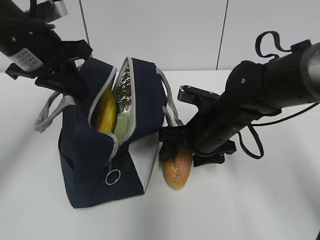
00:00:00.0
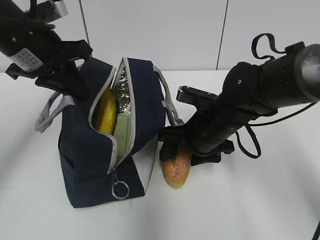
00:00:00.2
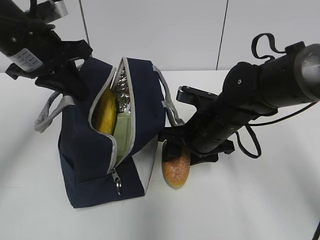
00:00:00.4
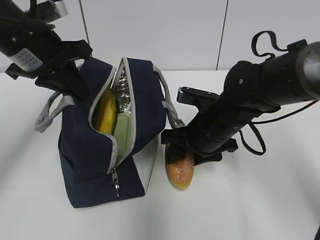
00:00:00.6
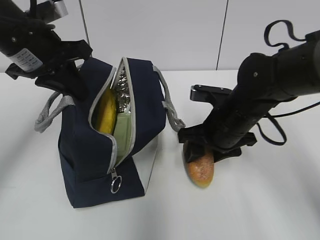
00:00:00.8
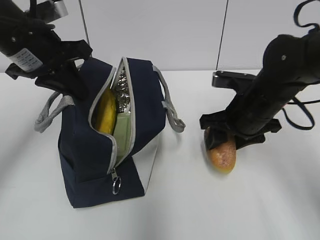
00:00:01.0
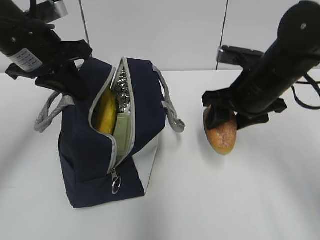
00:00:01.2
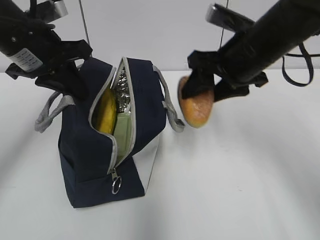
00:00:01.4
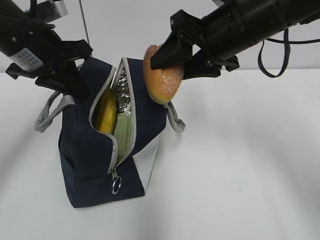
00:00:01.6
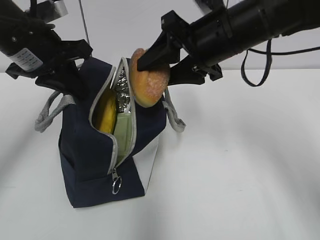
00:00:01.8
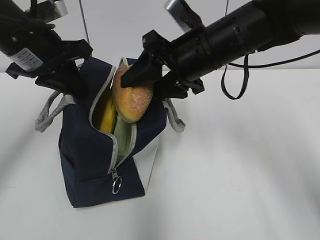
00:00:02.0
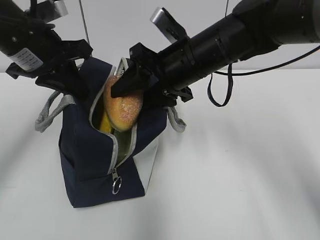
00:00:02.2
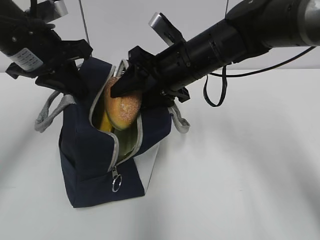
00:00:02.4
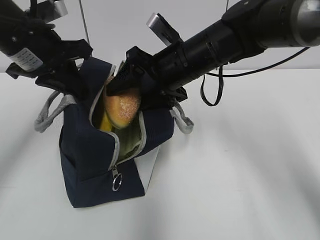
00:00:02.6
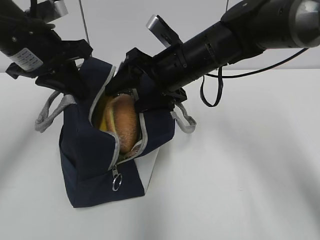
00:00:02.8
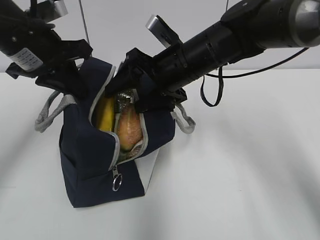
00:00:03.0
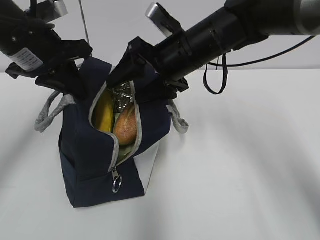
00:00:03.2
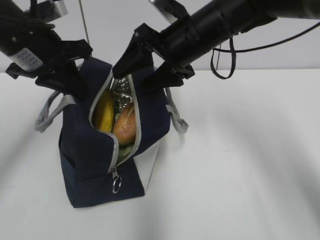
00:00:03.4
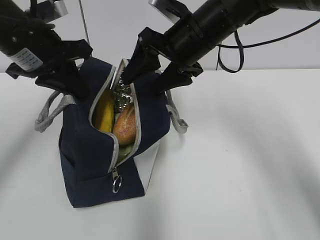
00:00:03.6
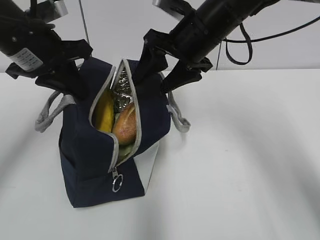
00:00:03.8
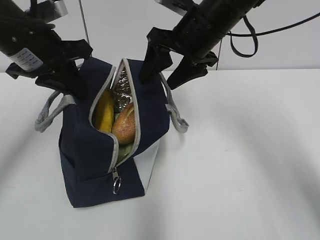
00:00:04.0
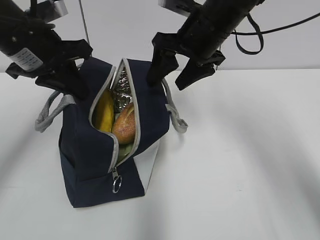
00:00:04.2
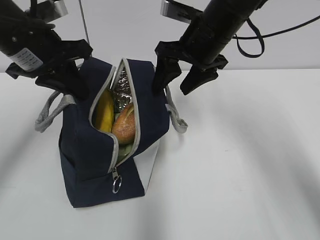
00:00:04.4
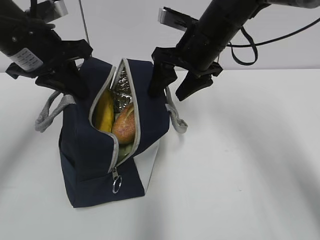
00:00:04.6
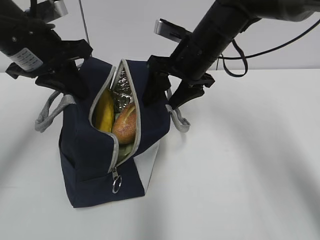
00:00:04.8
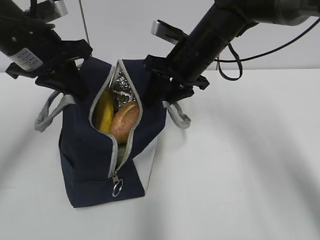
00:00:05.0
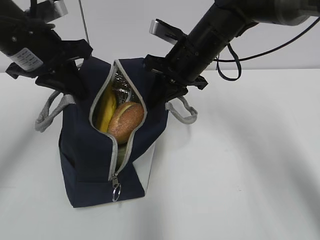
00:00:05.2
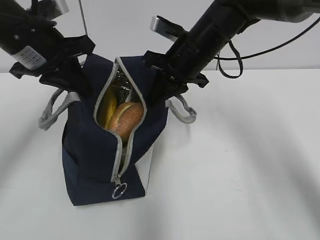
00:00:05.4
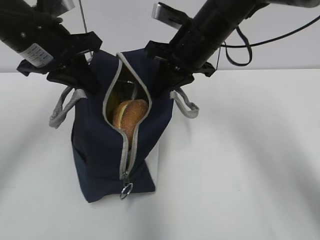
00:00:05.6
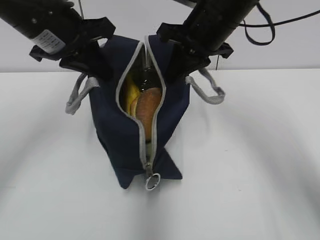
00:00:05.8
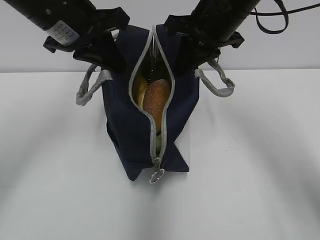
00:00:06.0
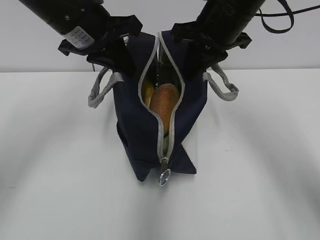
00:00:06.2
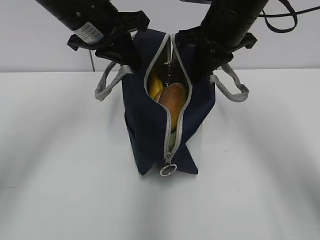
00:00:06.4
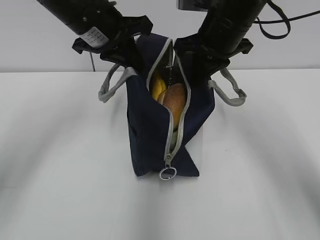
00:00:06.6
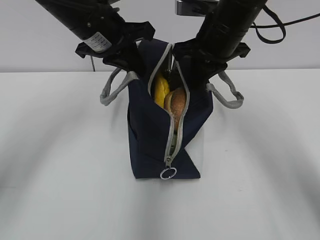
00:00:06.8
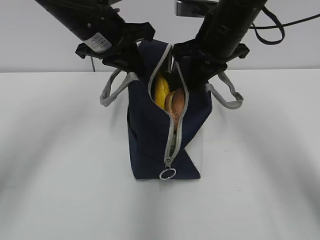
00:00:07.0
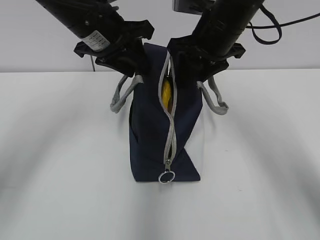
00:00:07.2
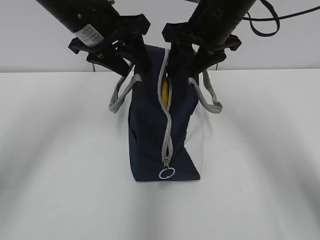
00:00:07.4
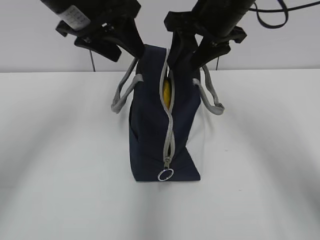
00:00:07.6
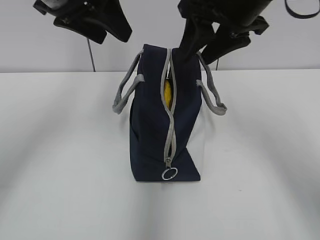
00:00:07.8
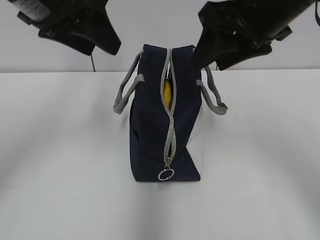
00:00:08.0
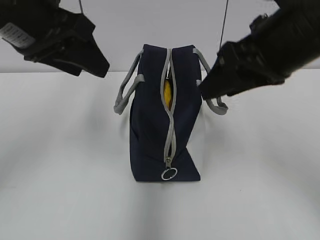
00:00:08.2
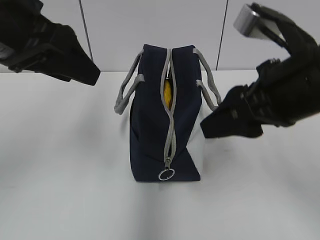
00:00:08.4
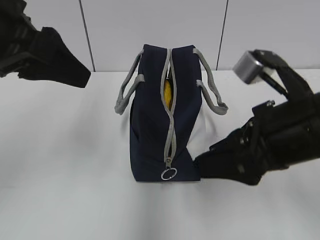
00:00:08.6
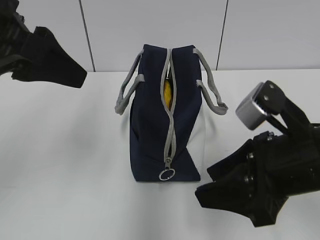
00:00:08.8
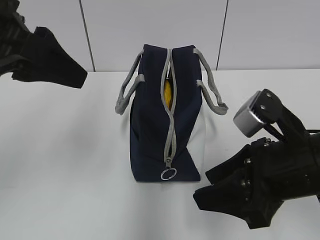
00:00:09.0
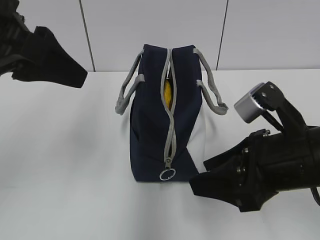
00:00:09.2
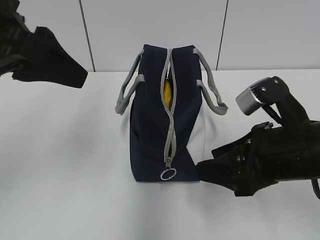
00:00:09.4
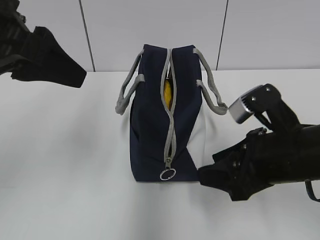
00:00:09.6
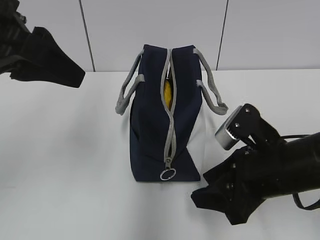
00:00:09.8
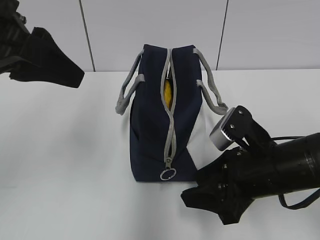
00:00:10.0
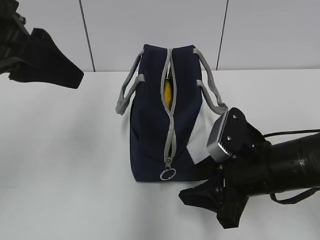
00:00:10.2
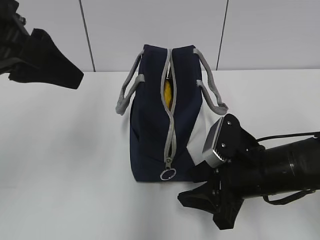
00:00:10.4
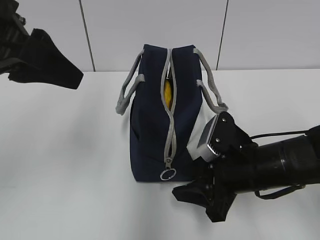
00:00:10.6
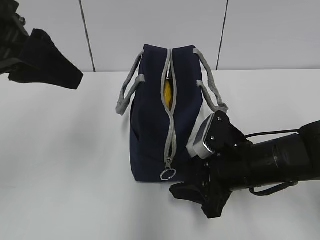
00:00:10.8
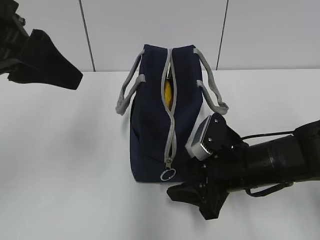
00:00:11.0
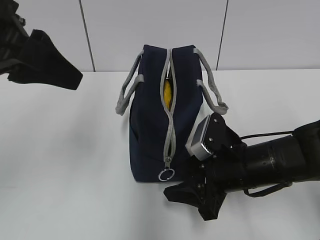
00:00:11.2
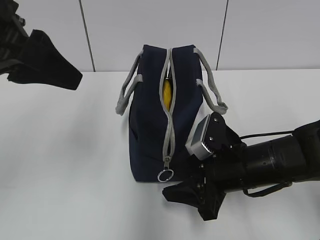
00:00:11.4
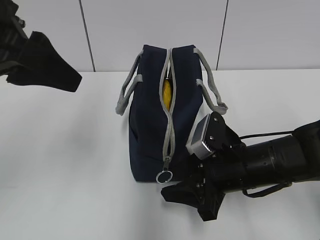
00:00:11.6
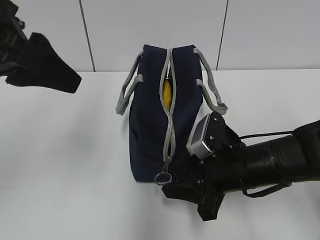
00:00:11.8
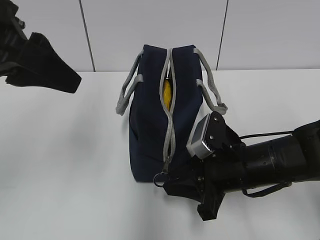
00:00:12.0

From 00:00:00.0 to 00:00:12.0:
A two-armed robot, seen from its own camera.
Step, from 00:00:00.6 to 00:00:03.0: Place it into the bag with your right hand.
Step, from 00:00:03.2 to 00:00:05.2: Grab the lunch bag with your right hand.
Step, from 00:00:05.4 to 00:00:05.6: Move the lunch bag to the left.
Step, from 00:00:05.8 to 00:00:07.2: Move the lunch bag to the right.
From 00:00:00.0 to 00:00:01.6: The right gripper moves upward, about 15 cm.
From 00:00:01.6 to 00:00:03.0: The right gripper heads downward and to the left, covering roughly 10 cm.
From 00:00:03.0 to 00:00:04.4: The right gripper moves roughly 5 cm.
From 00:00:04.4 to 00:00:06.0: The left gripper moves to the right, approximately 5 cm; the right gripper ends up approximately 5 cm from where it was, and closes.
From 00:00:06.0 to 00:00:07.6: The right gripper opens its fingers; the left gripper opens.
From 00:00:07.6 to 00:00:09.0: The left gripper shifts about 15 cm backward and to the left. Meanwhile the right gripper shifts roughly 20 cm backward and downward.
From 00:00:09.0 to 00:00:10.4: The right gripper is displaced downward by roughly 5 cm.
From 00:00:10.4 to 00:00:12.0: The right gripper closes.

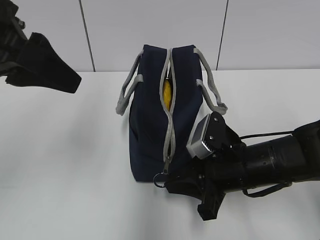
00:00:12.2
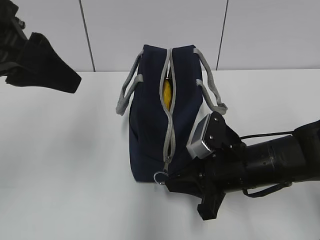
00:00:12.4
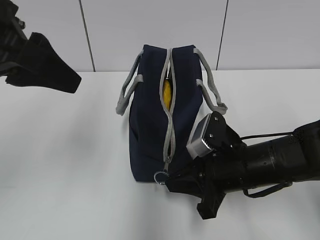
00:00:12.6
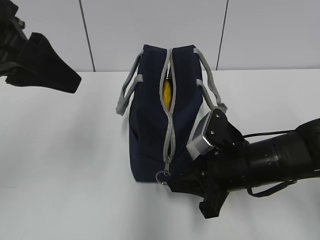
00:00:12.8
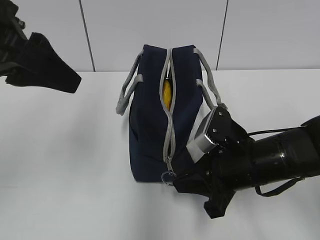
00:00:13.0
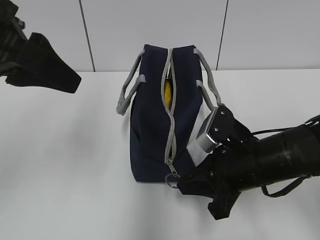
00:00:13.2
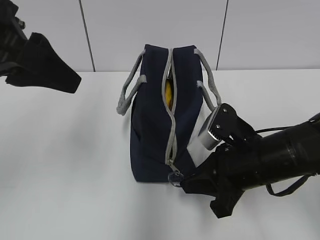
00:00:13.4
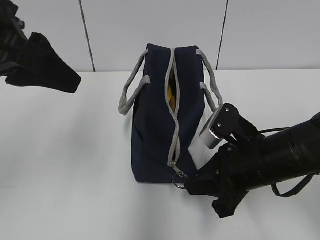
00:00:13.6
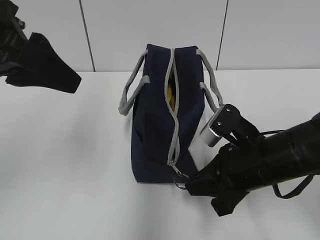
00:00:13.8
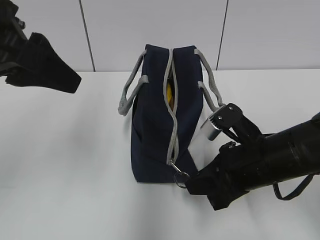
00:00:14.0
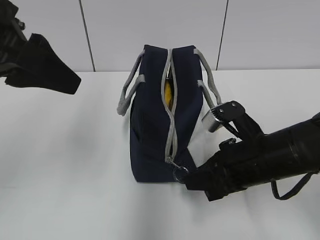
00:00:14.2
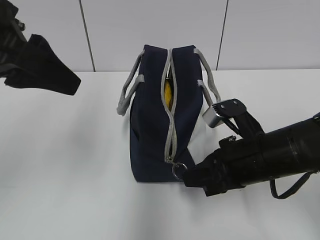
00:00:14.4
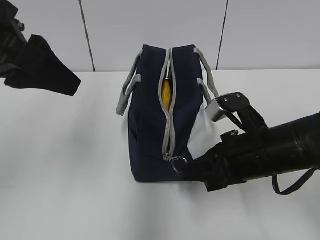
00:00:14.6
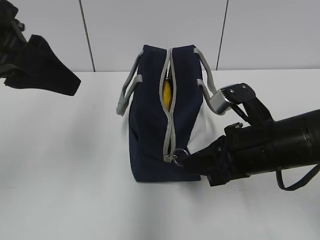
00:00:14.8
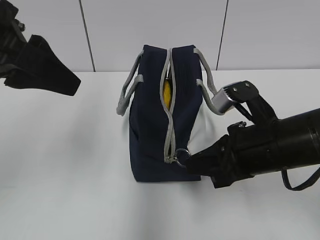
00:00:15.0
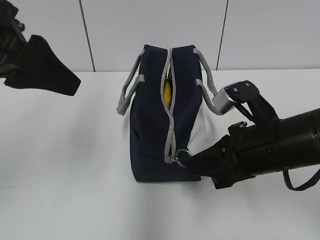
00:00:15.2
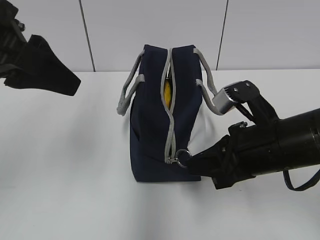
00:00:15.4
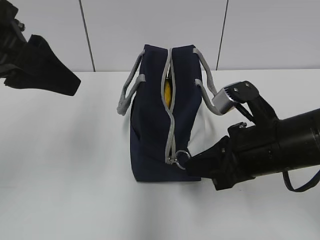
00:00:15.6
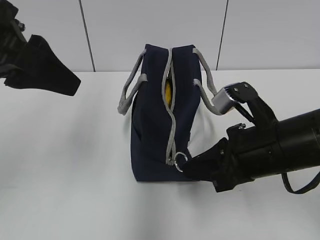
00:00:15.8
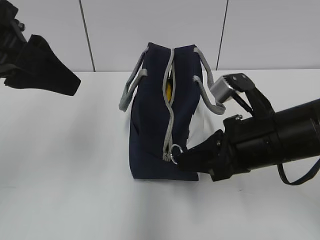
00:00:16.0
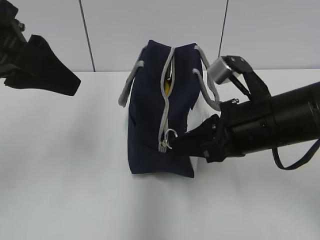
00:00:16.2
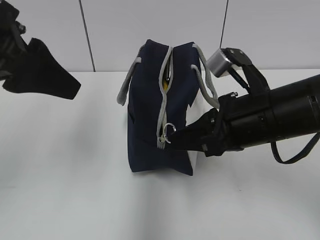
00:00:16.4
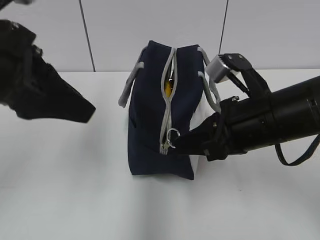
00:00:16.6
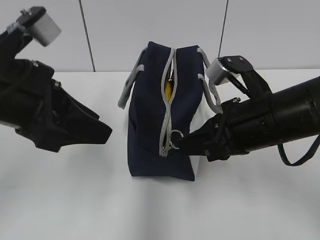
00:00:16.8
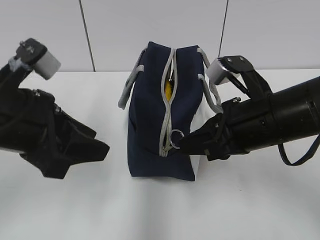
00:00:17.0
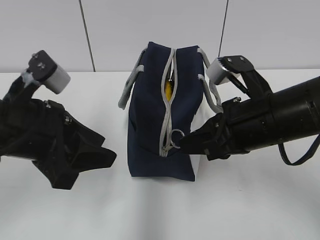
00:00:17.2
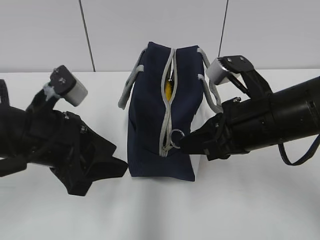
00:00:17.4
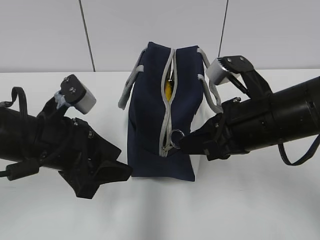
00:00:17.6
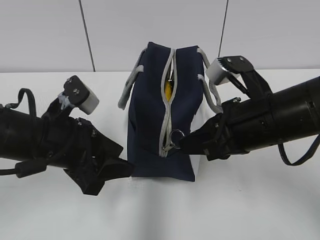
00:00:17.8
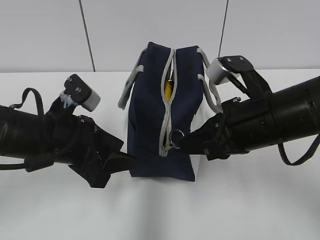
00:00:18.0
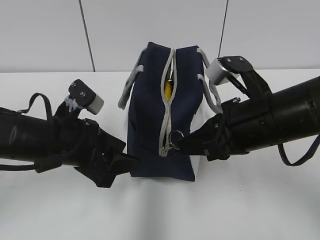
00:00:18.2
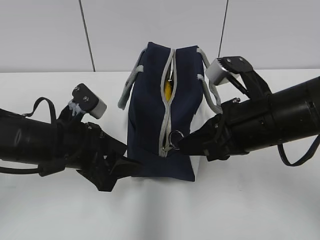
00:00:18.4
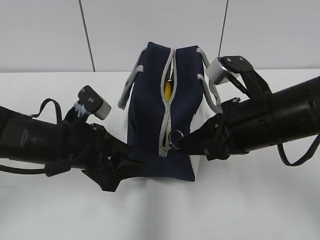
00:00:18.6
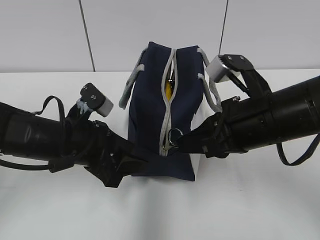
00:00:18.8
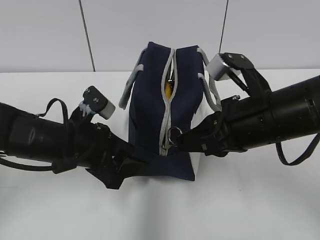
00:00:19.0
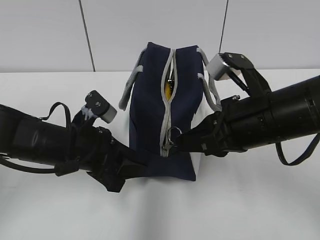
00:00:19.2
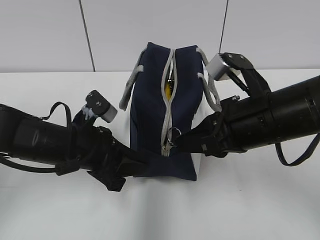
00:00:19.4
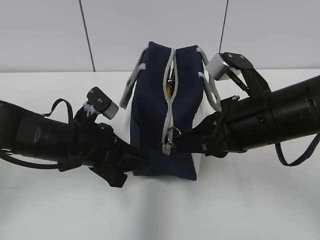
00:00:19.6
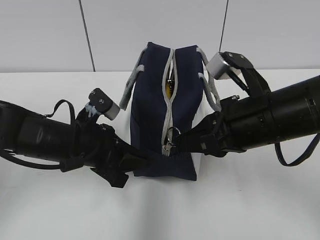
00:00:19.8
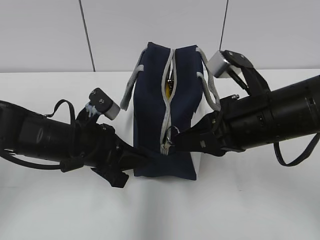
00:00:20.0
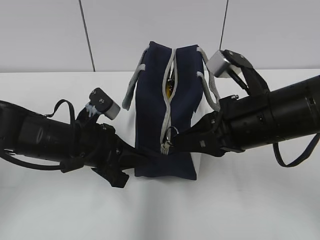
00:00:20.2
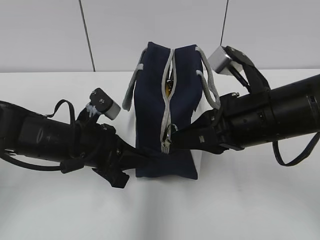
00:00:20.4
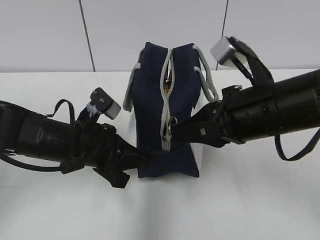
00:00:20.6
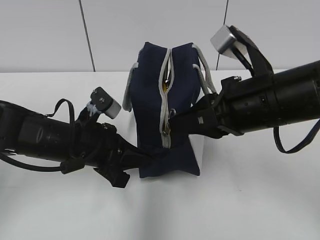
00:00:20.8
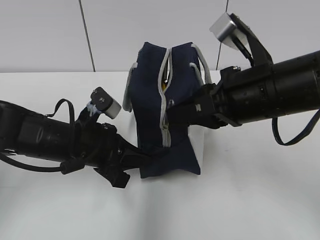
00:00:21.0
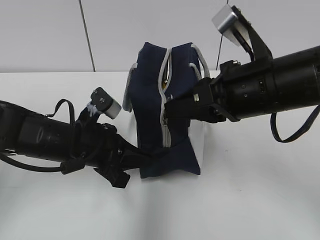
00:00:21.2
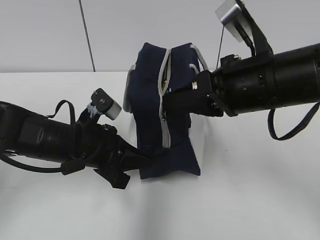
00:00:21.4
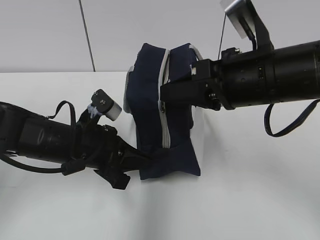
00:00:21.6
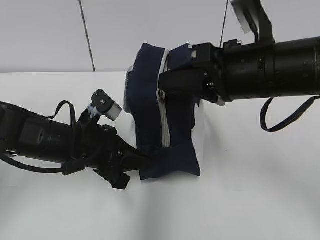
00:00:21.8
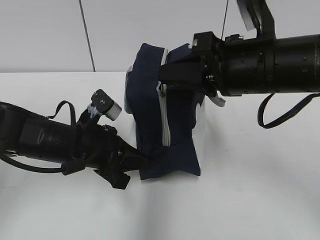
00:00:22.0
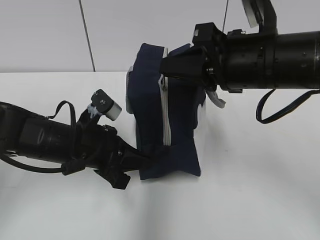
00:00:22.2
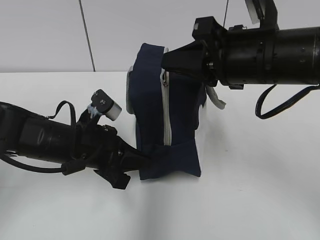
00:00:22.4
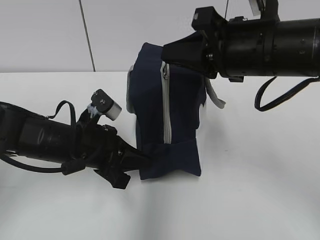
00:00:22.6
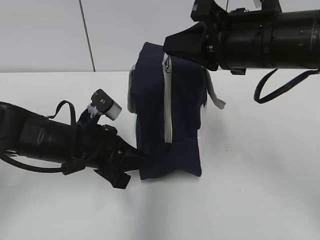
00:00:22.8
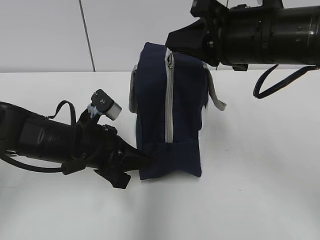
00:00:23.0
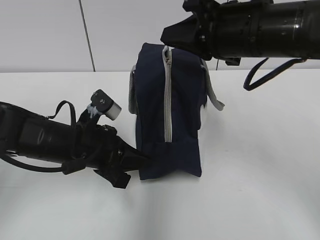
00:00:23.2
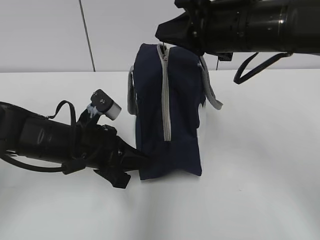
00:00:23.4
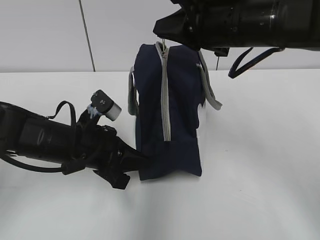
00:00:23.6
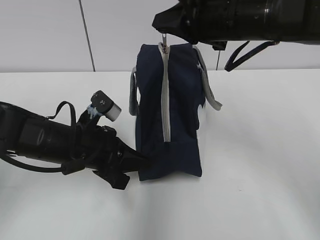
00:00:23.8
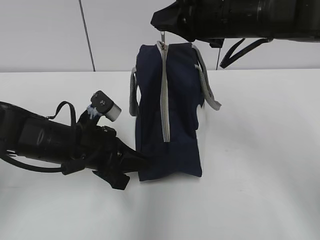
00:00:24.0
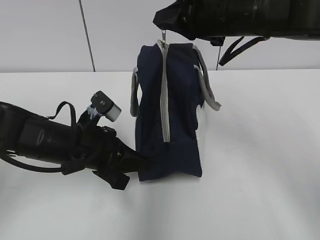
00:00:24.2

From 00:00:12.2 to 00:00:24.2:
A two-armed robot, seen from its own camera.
Step, from 00:00:12.2 to 00:00:19.4: Grab the lunch bag with your left hand.
From 00:00:12.2 to 00:00:13.8: The grippers move only a little.
From 00:00:13.8 to 00:00:15.2: The grippers make only small movements.
From 00:00:16.6 to 00:00:18.2: The left gripper heads downward, covering approximately 15 cm.
From 00:00:18.2 to 00:00:19.8: The left gripper closes its fingers.
From 00:00:19.8 to 00:00:21.2: The left gripper closes up.
From 00:00:22.6 to 00:00:24.2: The right gripper goes some 10 cm forward.
